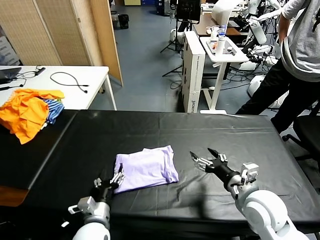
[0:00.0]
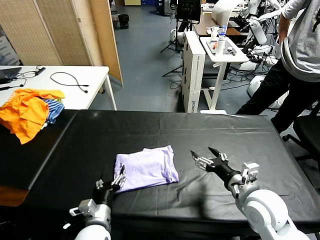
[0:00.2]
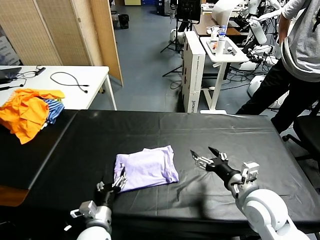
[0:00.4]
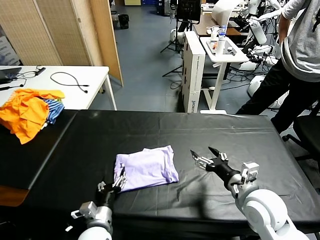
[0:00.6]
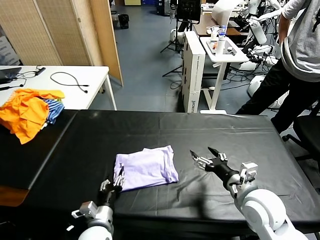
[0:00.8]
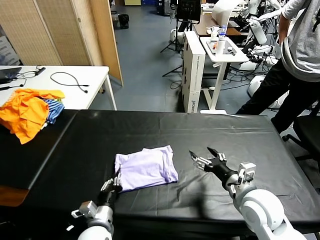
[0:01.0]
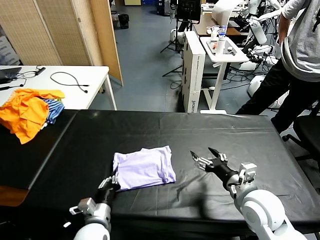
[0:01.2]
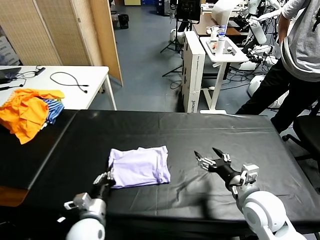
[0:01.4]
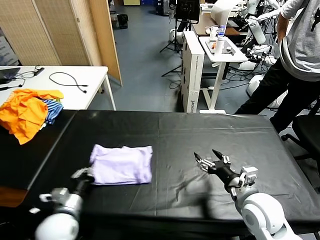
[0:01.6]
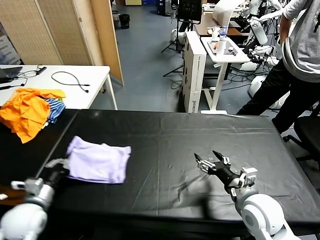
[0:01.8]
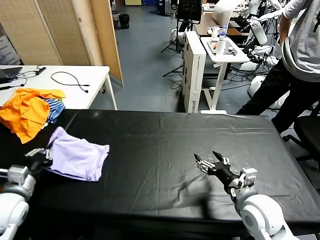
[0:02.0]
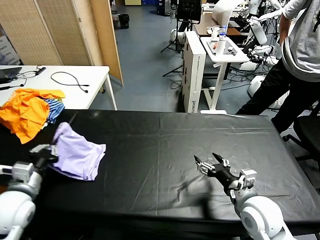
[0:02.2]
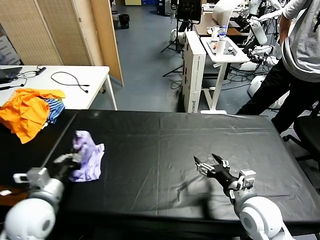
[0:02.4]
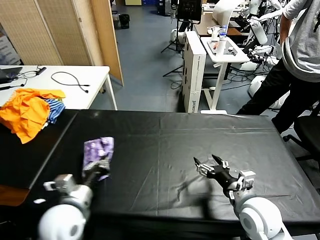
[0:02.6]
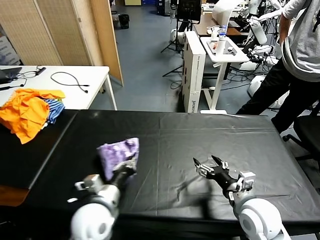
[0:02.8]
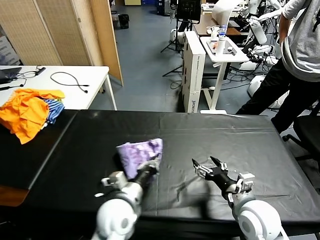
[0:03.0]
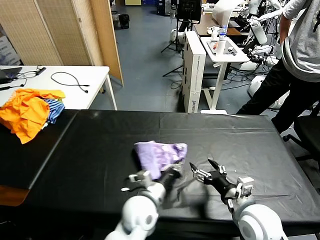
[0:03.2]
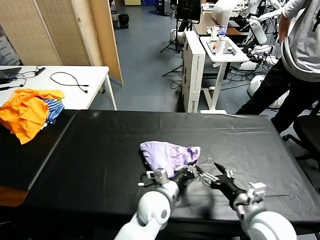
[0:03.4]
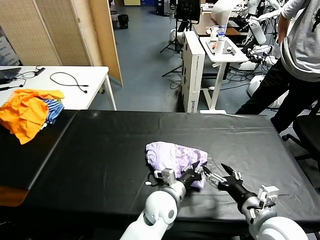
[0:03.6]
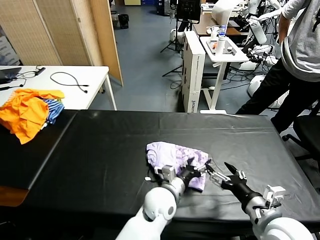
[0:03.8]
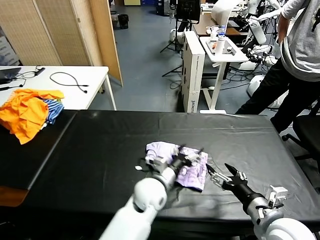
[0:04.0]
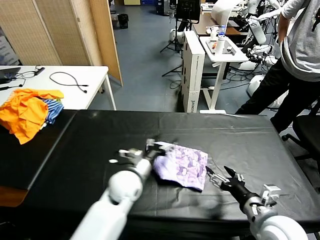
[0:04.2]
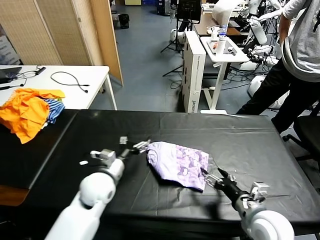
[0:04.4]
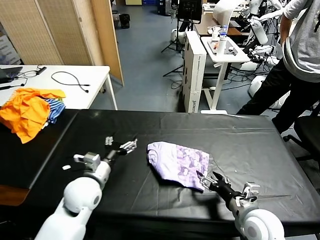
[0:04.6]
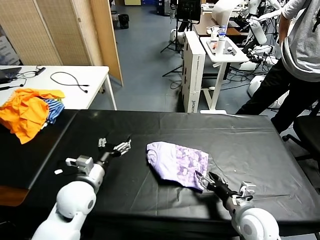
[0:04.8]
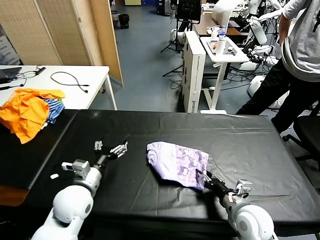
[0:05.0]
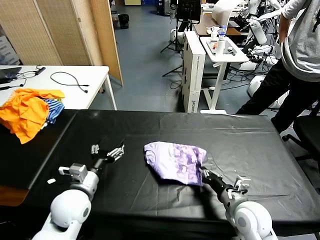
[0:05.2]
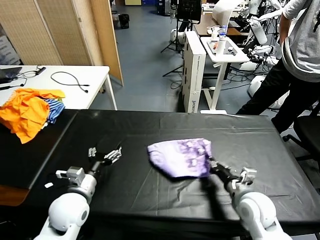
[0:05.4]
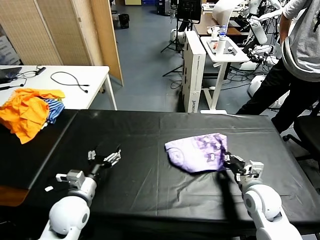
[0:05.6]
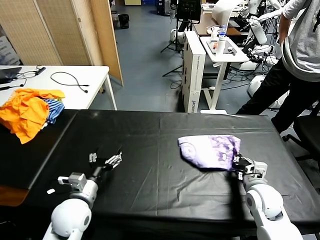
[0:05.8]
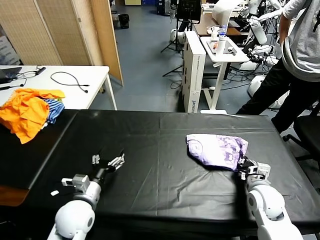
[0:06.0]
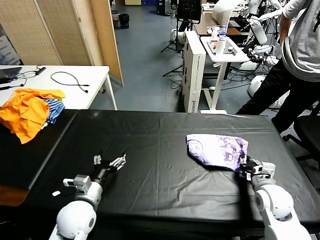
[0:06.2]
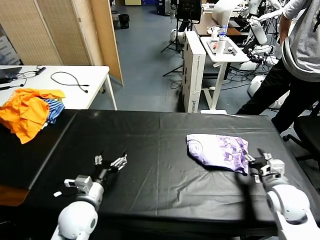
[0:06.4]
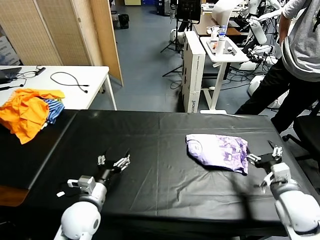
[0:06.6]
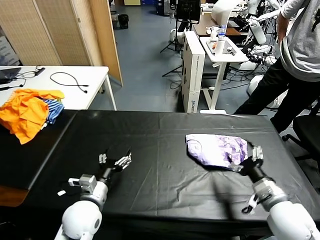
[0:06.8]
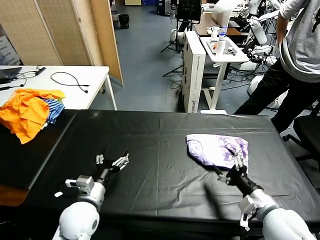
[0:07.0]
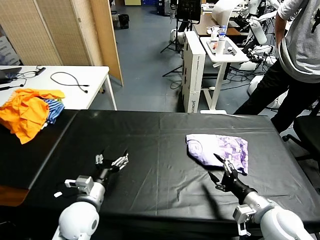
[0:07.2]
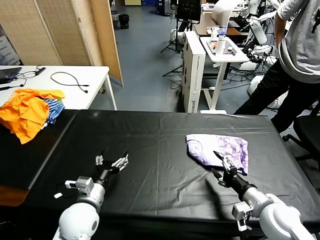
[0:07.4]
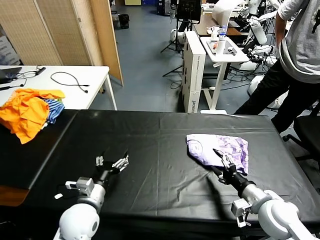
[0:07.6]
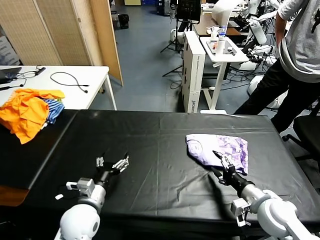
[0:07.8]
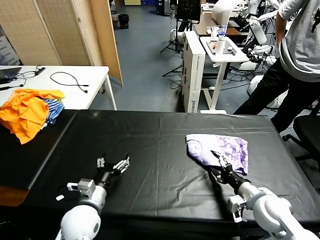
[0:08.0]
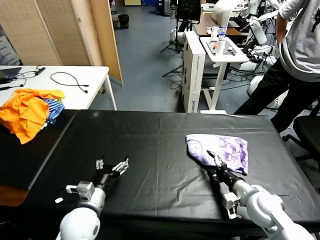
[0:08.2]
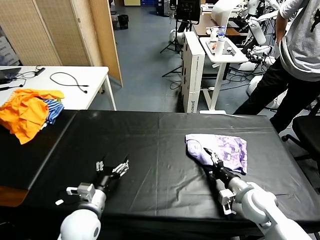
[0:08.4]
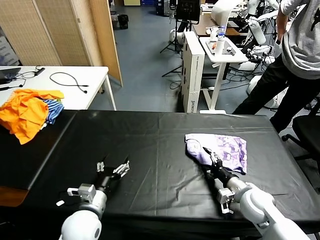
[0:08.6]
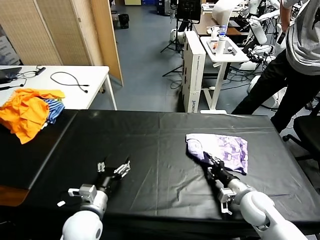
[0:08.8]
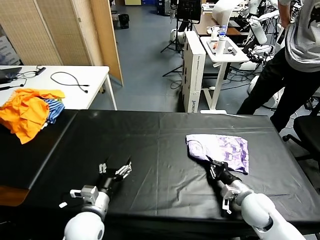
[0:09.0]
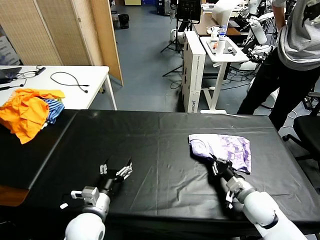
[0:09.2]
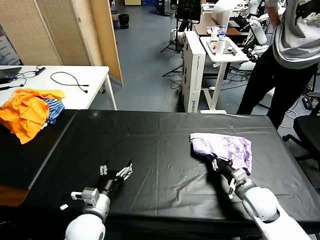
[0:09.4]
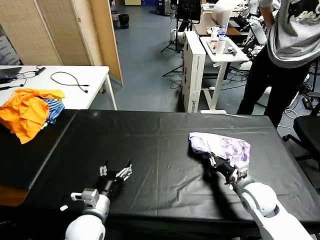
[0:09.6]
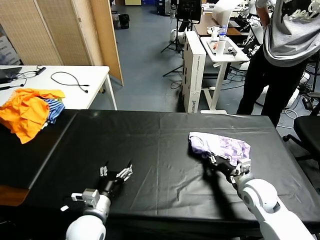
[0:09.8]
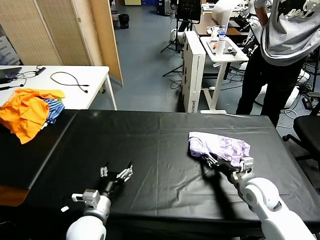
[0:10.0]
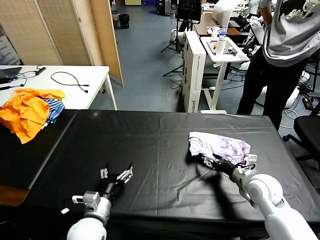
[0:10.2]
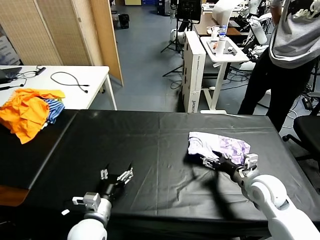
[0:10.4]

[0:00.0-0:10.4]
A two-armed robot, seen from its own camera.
Task of the whole recording: fold and organize the clothes.
Step, 0.0 to 3.8 s: Flip the folded clothes over with left gripper.
0.0 to 1.4 s: The left gripper closes up.
1.4 to 3.0 s: The left gripper moves upward, roughly 10 cm, and goes to the left and returns, about 20 cm each way.
3.0 to 4.4 s: The left gripper goes about 10 cm forward, reaches about 15 cm to the right, then returns, and opens up.
4.4 to 6.0 s: The right gripper moves forward, roughly 10 cm, and closes. Meanwhile the left gripper heads backward and to the left, covering roughly 10 cm.
6.0 to 7.4 s: The right gripper moves backward, some 5 cm, and opens.
7.4 to 9.0 s: The right gripper goes roughly 10 cm downward and forward, and closes its fingers.
9.0 to 10.4 s: The right gripper heads upward, covering approximately 5 cm, and opens.

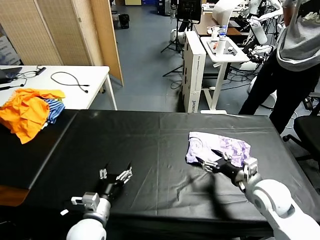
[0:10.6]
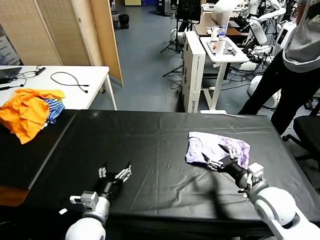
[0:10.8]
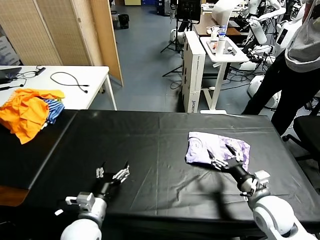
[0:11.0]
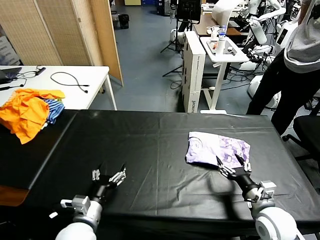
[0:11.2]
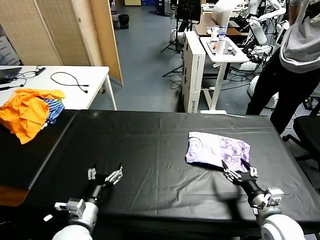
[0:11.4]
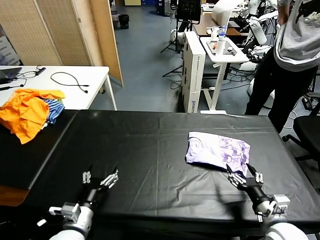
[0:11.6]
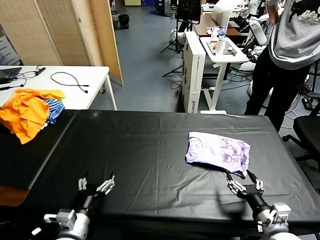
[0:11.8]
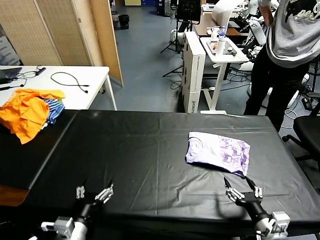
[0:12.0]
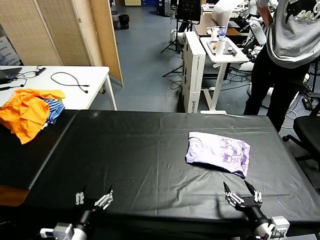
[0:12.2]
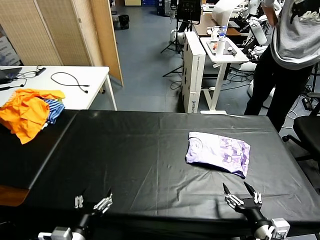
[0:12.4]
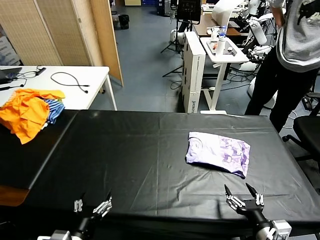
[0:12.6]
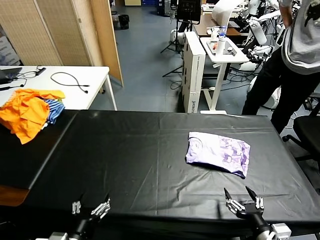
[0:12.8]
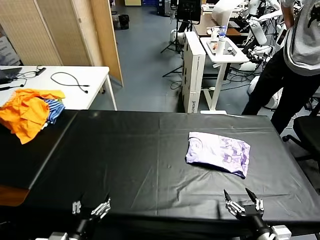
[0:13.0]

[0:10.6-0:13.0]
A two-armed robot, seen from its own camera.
Task of the whole recording: fold and organize the clothes.
10.6 to 11.8 s: The right gripper goes some 15 cm backward; the left gripper shifts by some 5 cm.
11.8 to 13.0 s: The grippers both shift backward by about 5 cm.

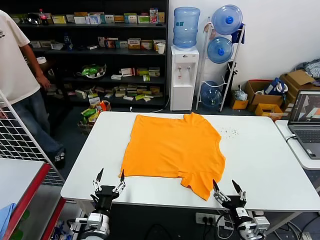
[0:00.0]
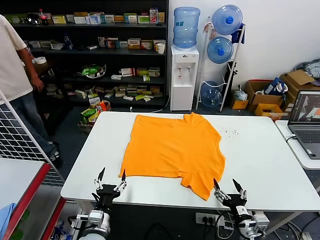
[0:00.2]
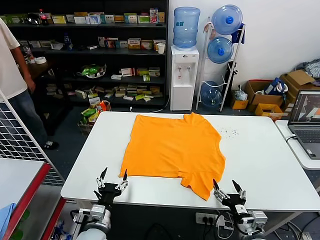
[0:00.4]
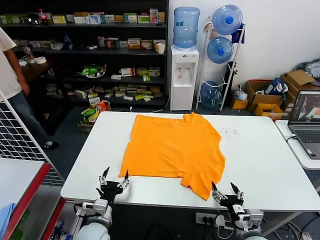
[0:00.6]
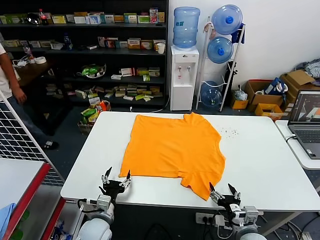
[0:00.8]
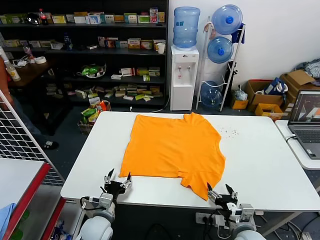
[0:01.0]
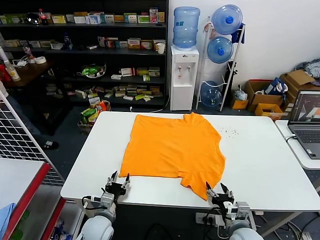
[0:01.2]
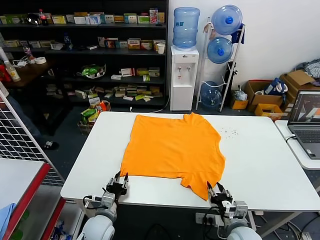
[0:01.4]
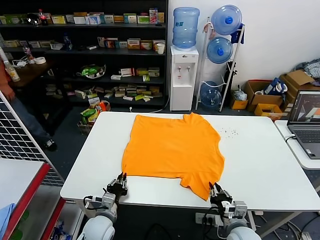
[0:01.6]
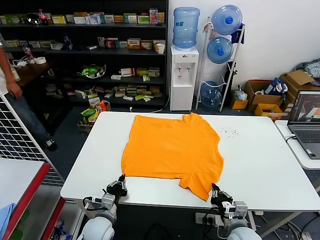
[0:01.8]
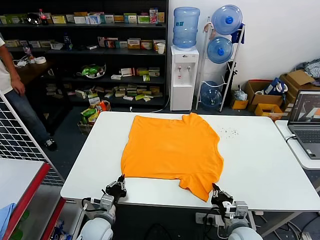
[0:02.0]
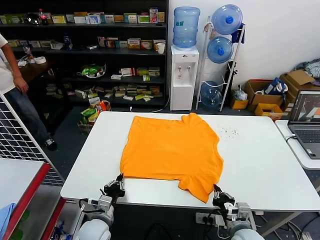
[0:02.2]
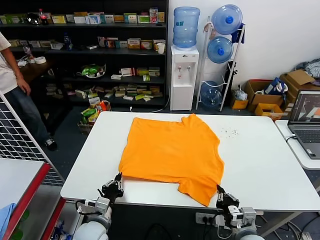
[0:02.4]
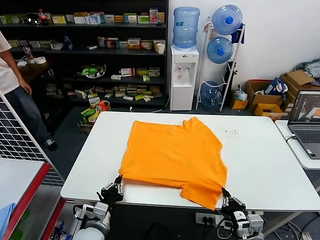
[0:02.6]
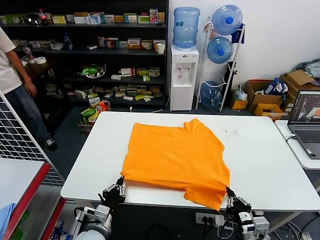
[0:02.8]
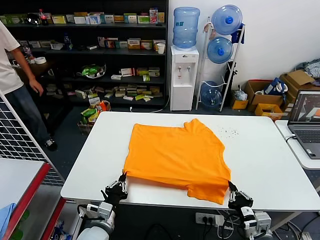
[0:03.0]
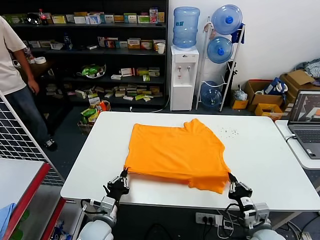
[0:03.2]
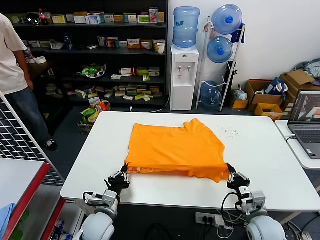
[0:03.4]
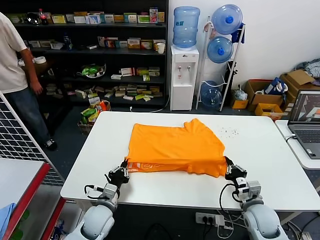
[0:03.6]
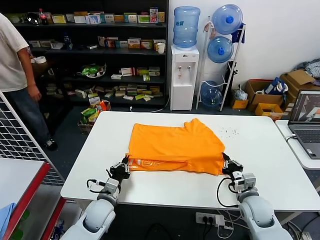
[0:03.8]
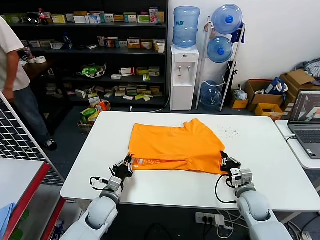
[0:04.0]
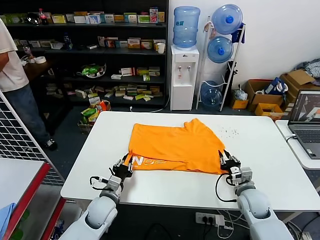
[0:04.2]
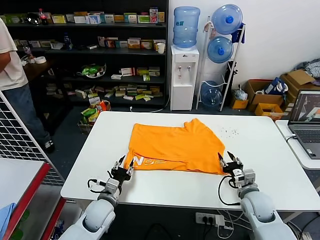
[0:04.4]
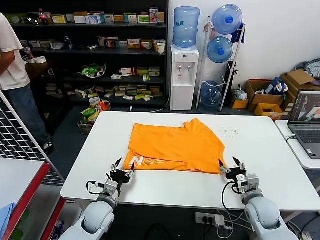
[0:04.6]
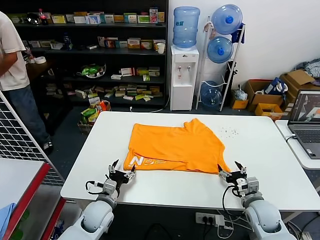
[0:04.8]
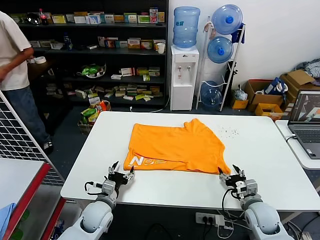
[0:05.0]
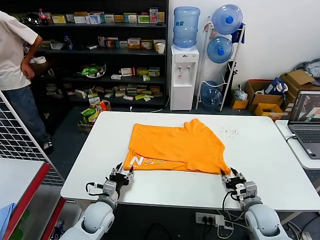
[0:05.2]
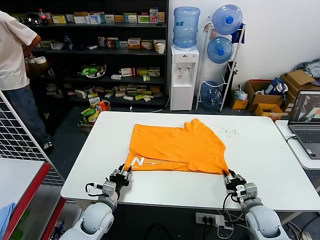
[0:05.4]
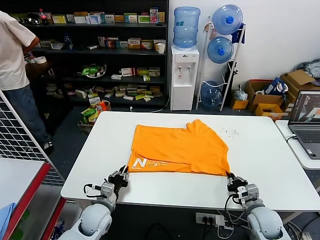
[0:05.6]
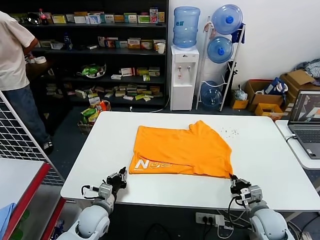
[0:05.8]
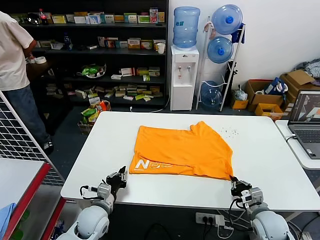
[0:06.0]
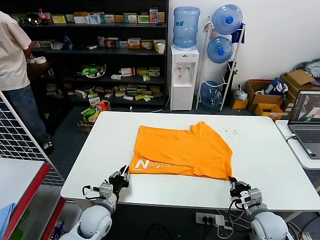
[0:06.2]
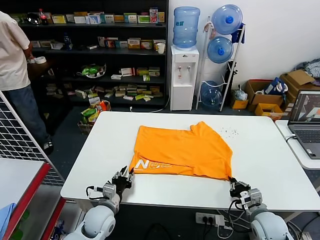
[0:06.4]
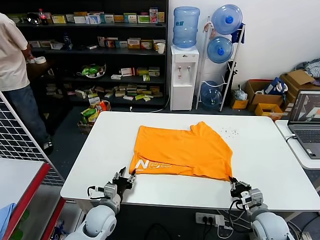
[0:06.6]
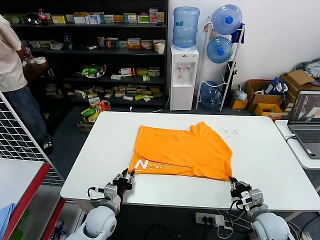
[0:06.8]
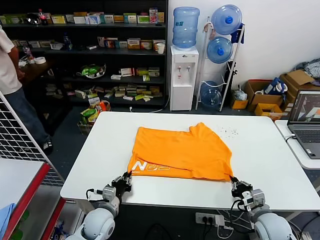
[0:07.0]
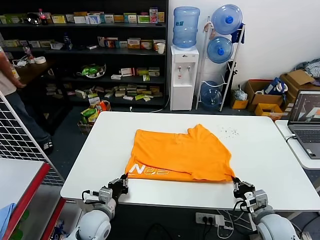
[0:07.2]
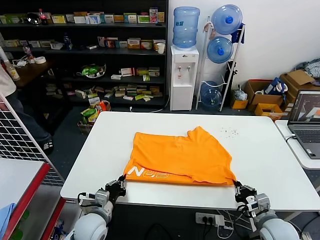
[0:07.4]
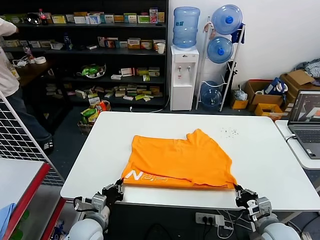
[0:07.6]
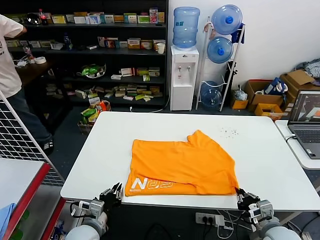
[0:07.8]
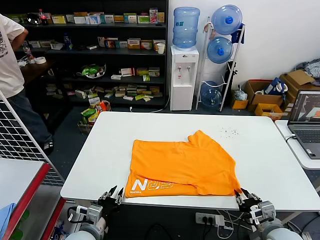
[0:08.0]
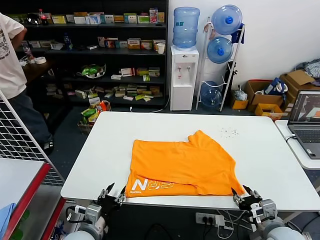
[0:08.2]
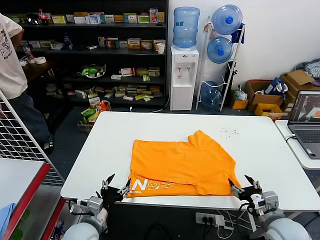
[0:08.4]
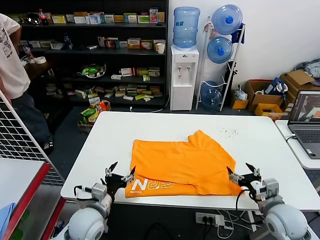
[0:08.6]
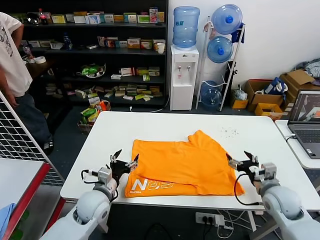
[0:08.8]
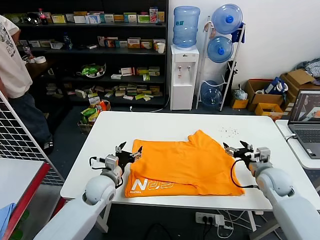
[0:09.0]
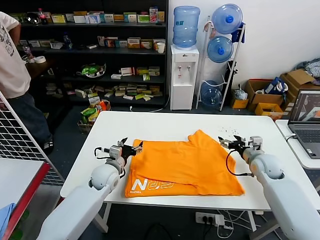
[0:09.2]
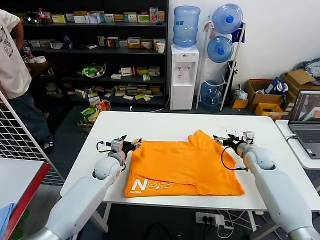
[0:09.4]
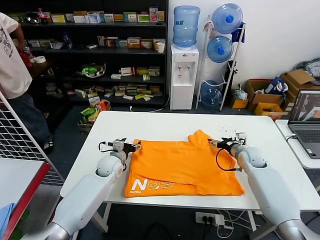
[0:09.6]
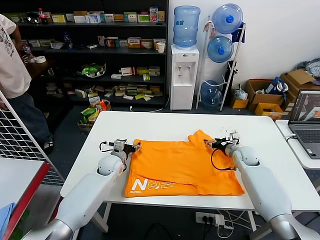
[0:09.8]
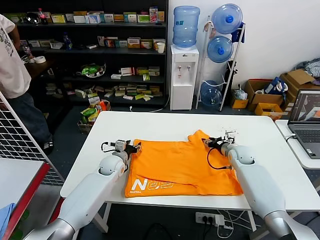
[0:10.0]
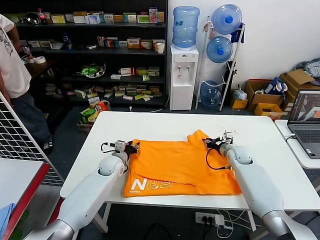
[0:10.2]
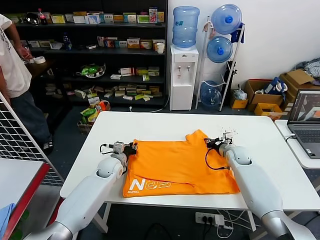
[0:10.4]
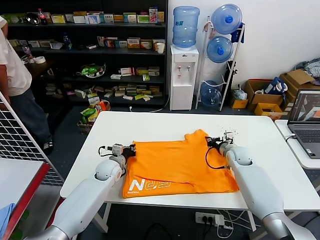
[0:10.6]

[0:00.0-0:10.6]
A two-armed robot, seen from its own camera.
Task of the whole recording: fold and organize the clothes.
Step, 0.0 to 1.8 s: use both grippers simultaneously to clamp the lower edge of the clothing fabric.
Step, 2.2 to 4.0 s: use both grippers to drag the lower edge of the fabric forward and fold it over the upper edge.
Step, 4.4 to 8.0 s: Drag the clothes downward with both gripper.
Step, 8.2 to 10.4 s: use both grippers simultaneously to clamp the upper edge of the clothing fabric.
1.6 to 3.0 s: The right gripper ends up about 5 cm from where it was. Meanwhile the left gripper shifts by approximately 5 cm.
3.0 to 4.6 s: The two grippers go roughly 10 cm forward. The right gripper opens its fingers; the left gripper opens.
4.6 to 6.0 s: The left gripper closes its fingers. The right gripper closes.
6.0 to 7.6 s: The left gripper opens and closes again. The right gripper changes place by about 5 cm.
7.6 to 9.0 s: The two grippers go about 15 cm forward. The right gripper opens its fingers. Meanwhile the left gripper opens up.
9.0 to 10.6 s: The right gripper moves forward, to the left and downward, roughly 15 cm, and closes up; the left gripper moves forward and downward, about 10 cm, and closes up.
